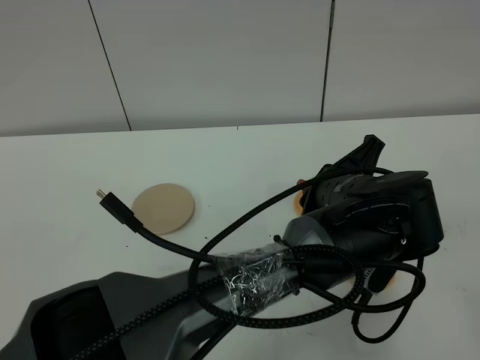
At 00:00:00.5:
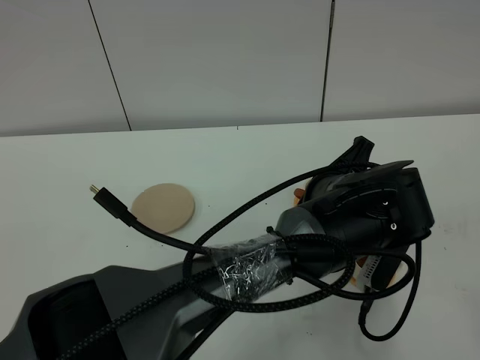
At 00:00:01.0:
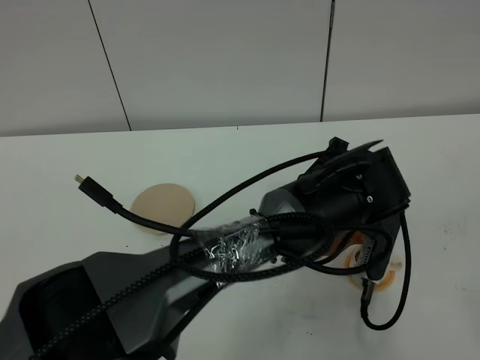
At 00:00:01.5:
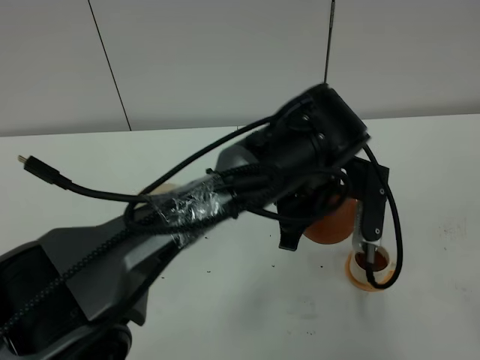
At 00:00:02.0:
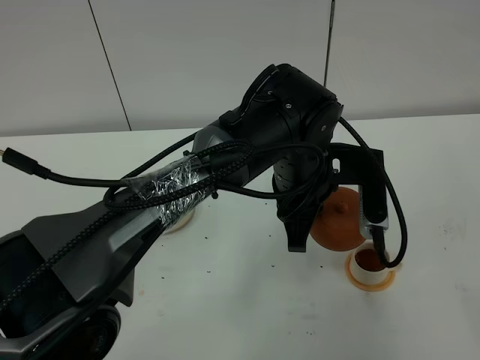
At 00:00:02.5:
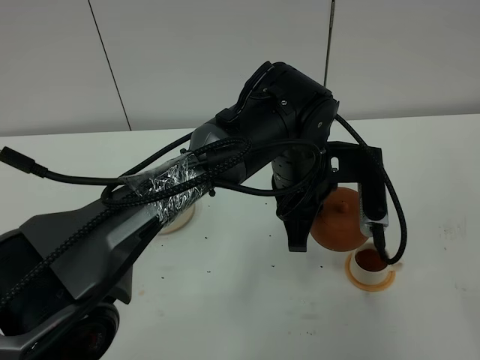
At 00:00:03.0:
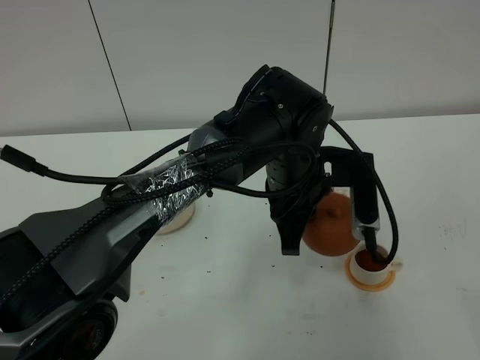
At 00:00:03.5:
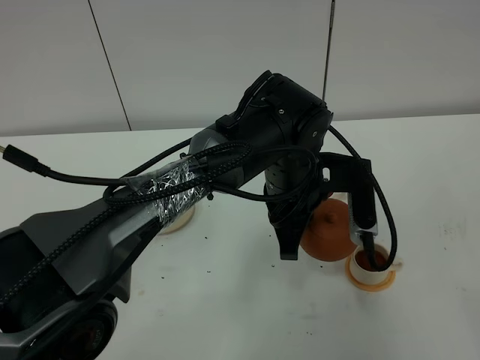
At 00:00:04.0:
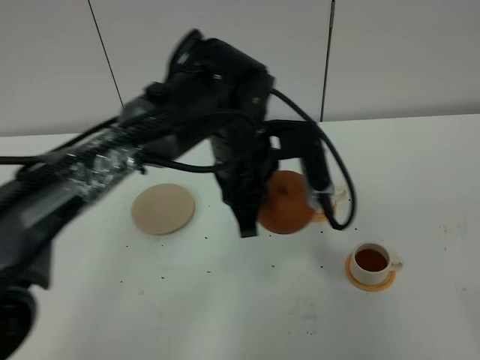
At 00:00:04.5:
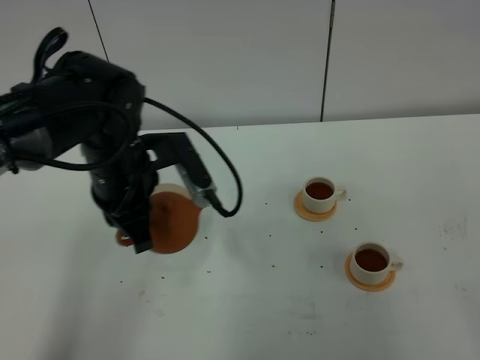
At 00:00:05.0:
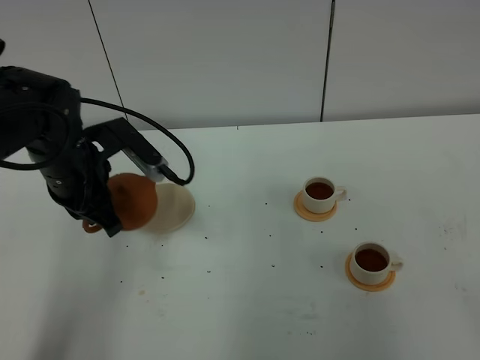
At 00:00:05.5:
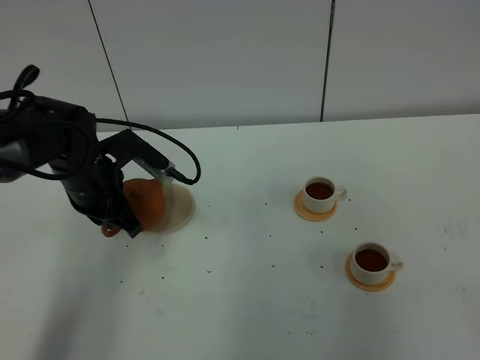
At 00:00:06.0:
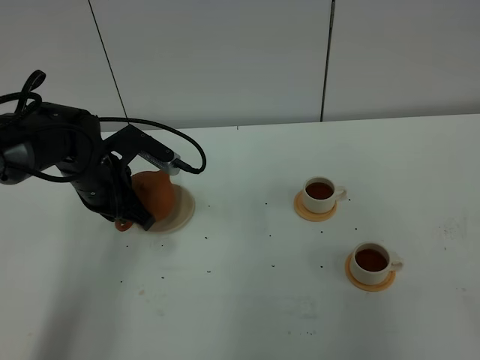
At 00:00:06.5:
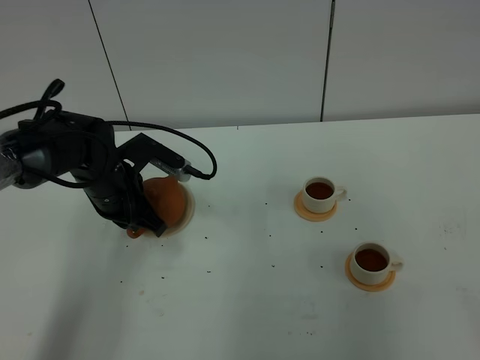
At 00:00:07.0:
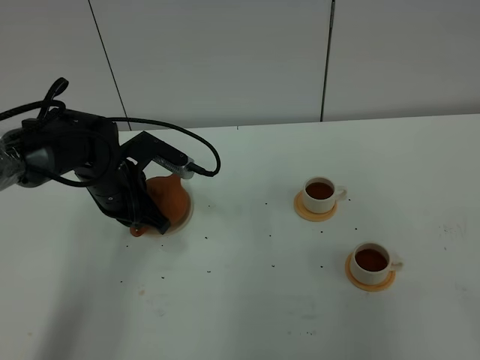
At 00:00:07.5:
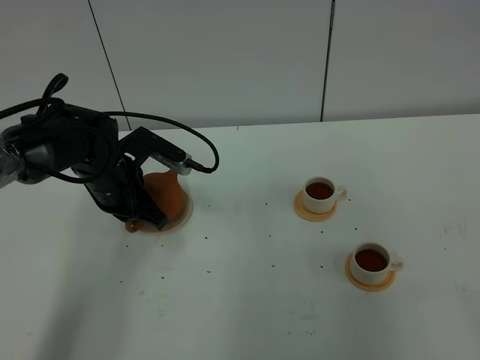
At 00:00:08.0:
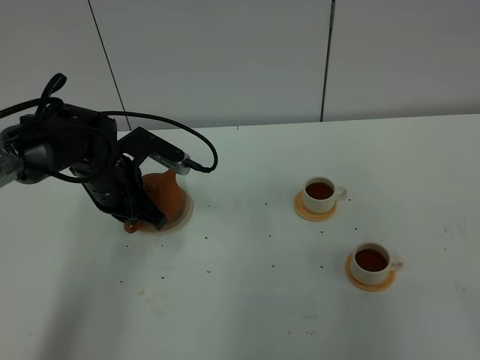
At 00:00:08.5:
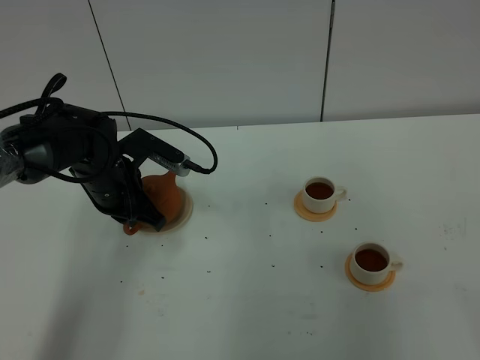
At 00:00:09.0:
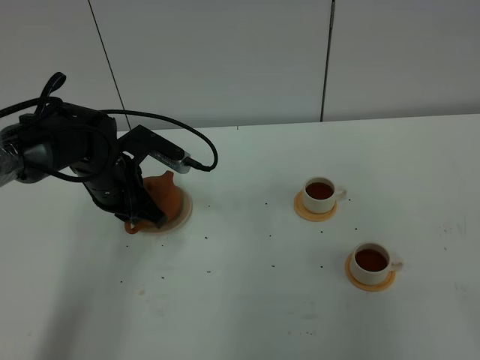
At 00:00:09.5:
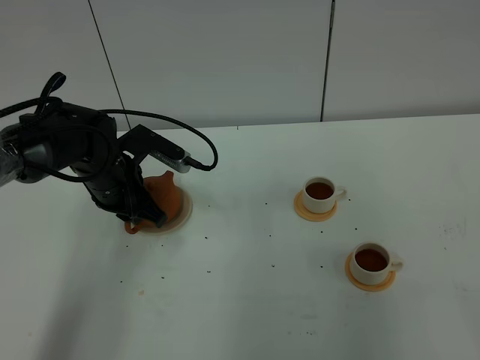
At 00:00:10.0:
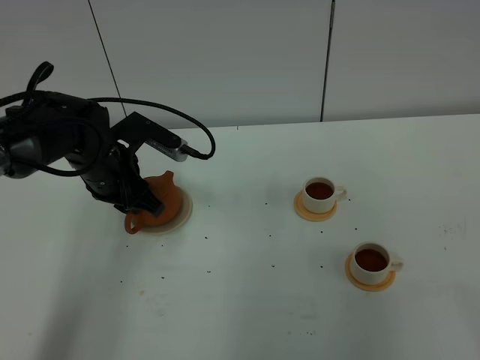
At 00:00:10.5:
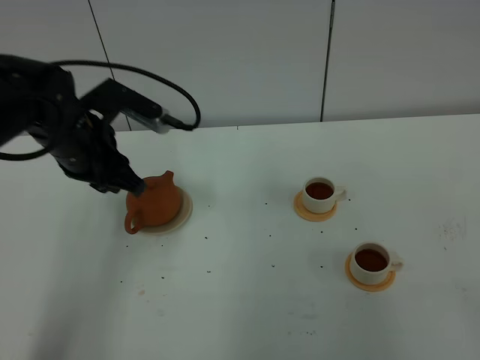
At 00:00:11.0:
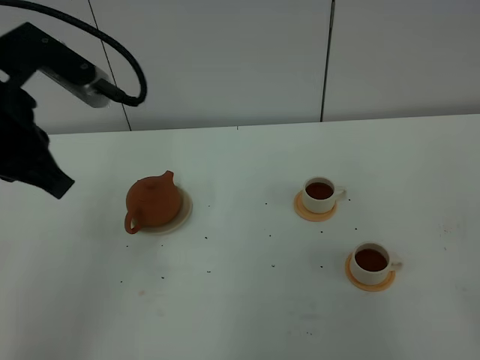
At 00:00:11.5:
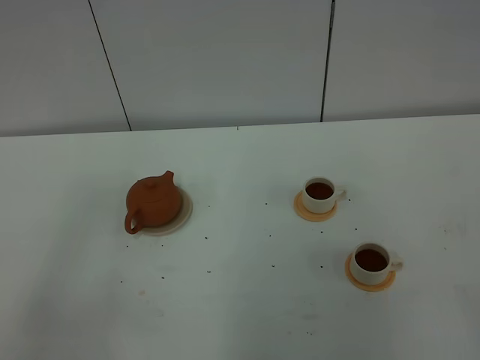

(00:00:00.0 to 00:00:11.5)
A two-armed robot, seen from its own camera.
Task of the whole recording: grasp the brown teapot and pour the tea into the two white teacups one by one, put the brown teapot back in its original place.
Step, 00:00:00.0 - 00:00:02.0: Pour tea into the teacup with the left gripper.
00:00:00.0 - 00:00:02.0: The left gripper heads to the left and forward, covering some 10 cm.
00:00:02.0 - 00:00:04.0: The left gripper travels to the left by some 10 cm.
00:00:04.0 - 00:00:06.0: The left gripper travels to the left and downward by approximately 20 cm.
00:00:06.0 - 00:00:07.5: There are only small adjustments of the grippers.
00:00:07.5 - 00:00:09.5: The left gripper opens.
00:00:09.5 - 00:00:11.5: The left gripper is displaced backward and upward by about 40 cm, and closes.
